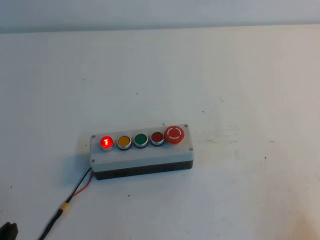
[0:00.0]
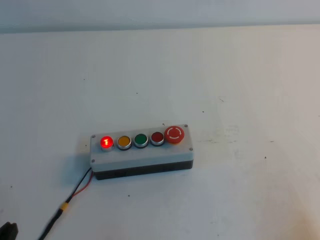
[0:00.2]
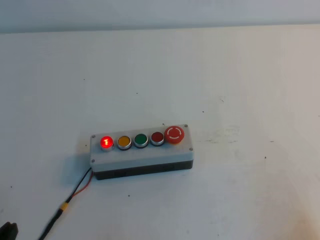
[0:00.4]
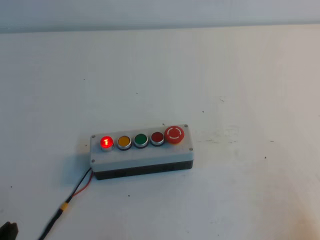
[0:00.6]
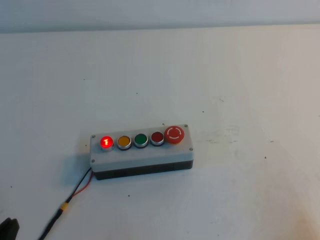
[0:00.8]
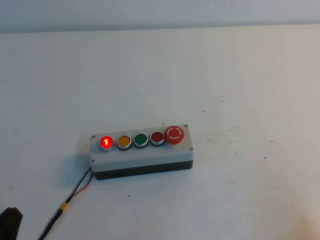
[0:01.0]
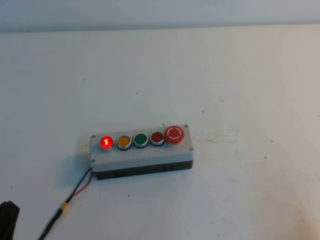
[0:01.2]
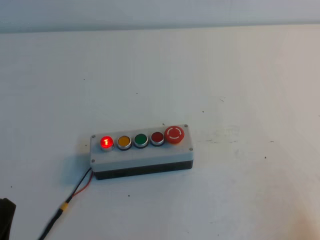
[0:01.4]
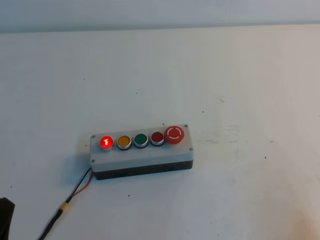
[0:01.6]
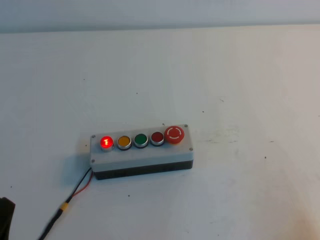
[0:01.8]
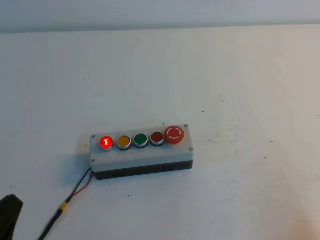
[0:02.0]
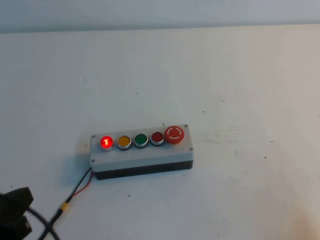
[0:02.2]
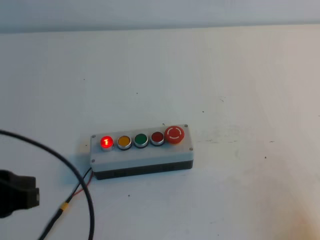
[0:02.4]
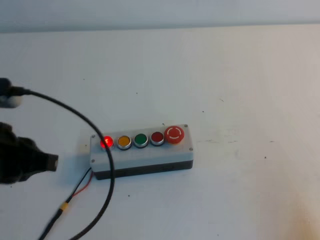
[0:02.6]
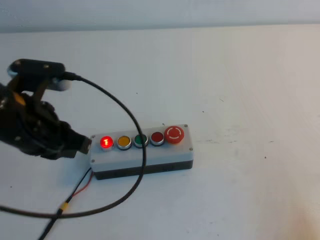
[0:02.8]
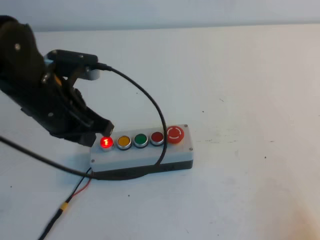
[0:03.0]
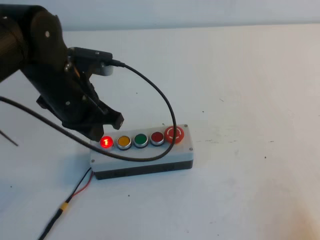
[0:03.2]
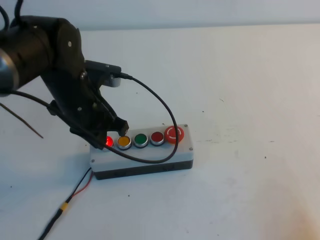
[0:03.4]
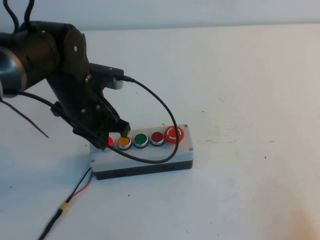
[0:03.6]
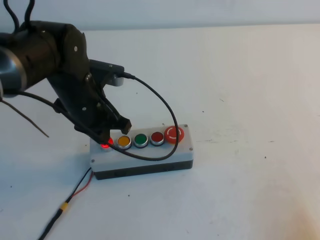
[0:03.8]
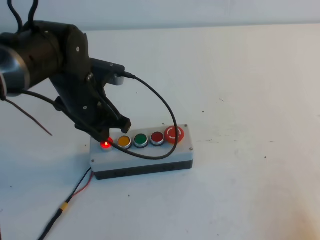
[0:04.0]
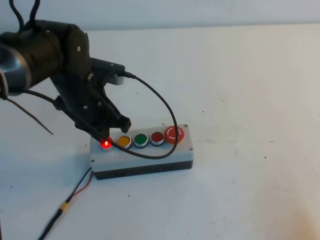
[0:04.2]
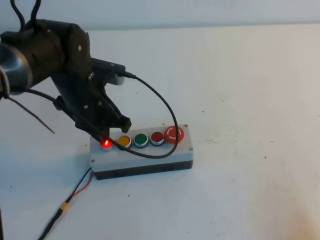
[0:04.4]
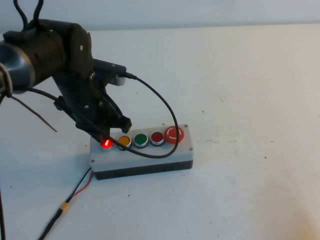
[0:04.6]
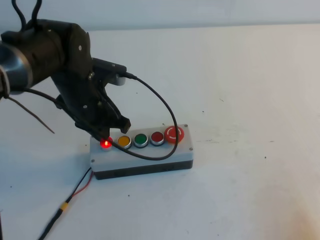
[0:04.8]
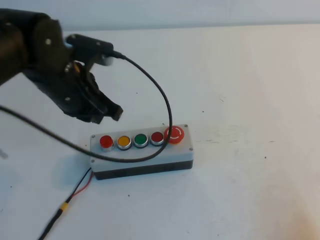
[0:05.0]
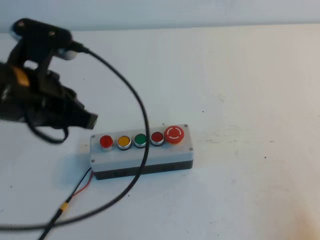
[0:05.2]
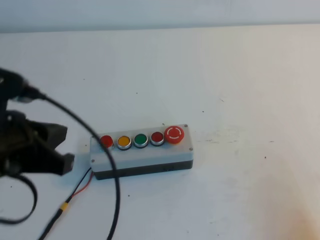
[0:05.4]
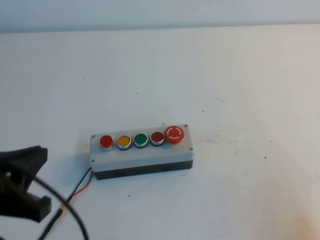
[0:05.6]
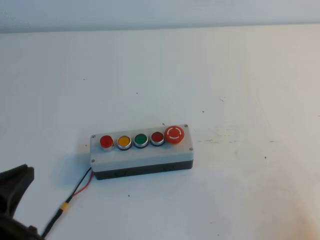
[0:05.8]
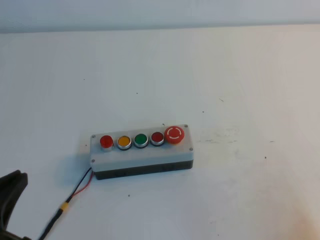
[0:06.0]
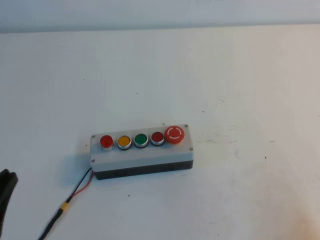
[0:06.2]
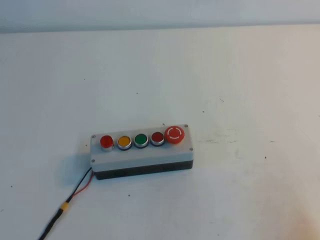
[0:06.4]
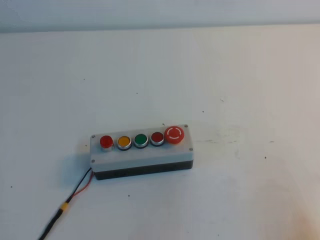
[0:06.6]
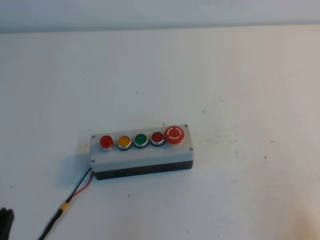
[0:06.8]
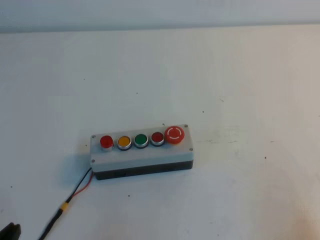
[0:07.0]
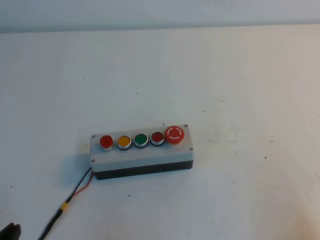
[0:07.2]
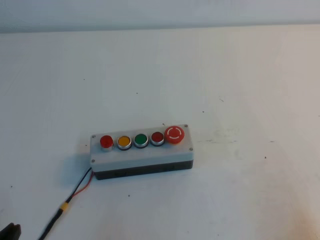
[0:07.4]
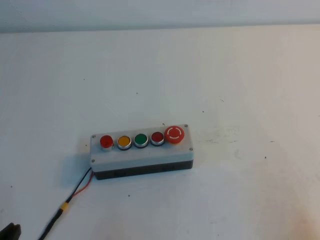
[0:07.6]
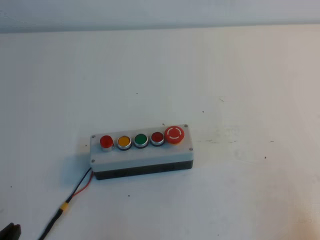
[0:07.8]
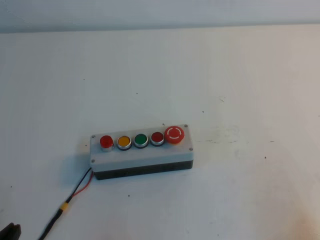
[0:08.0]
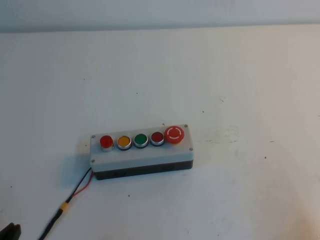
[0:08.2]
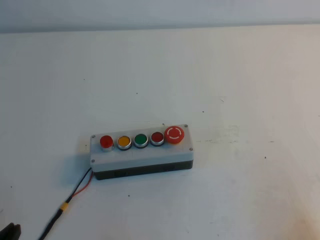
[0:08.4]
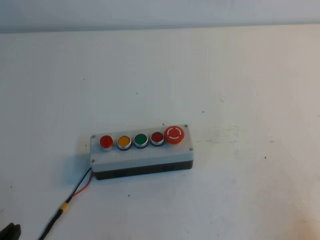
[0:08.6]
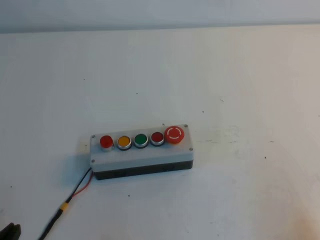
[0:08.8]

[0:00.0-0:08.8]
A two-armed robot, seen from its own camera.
Task of the whole recording: press the button switch with the left gripper to turn off the button.
Step, 0:00.0 to 0:08.8: Press the button to turn off.
0:01.4 to 0:03.0: The left gripper goes about 25 cm forward, upward and to the right.
0:03.0 to 0:04.4: The left gripper shifts about 15 cm forward, downward and to the right.
0:04.4 to 0:05.8: The left gripper shifts roughly 25 cm backward and to the left.
0:05.8 to 0:07.4: The left gripper shifts some 15 cm downward and backward.
0:07.4 to 0:08.8: The two grippers keep their place.
